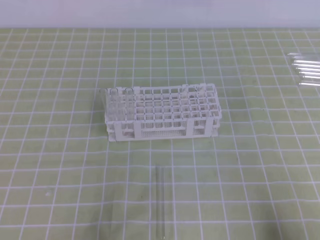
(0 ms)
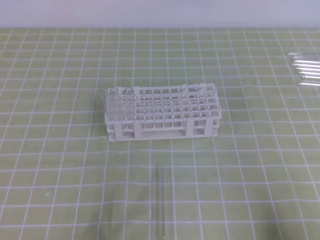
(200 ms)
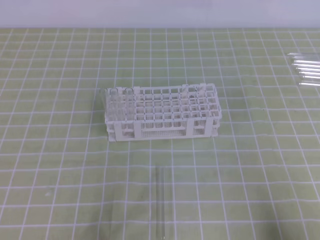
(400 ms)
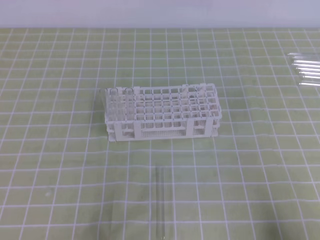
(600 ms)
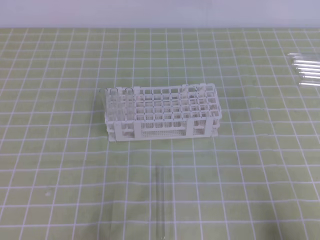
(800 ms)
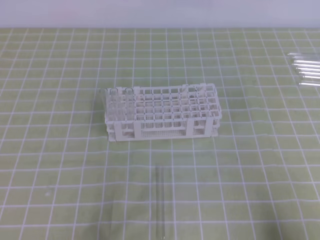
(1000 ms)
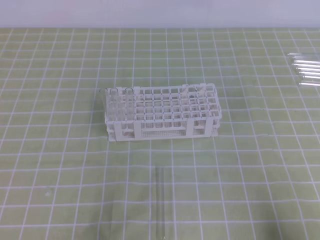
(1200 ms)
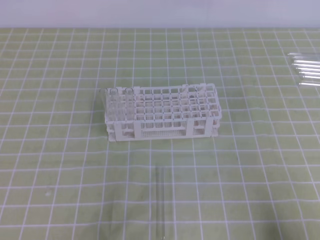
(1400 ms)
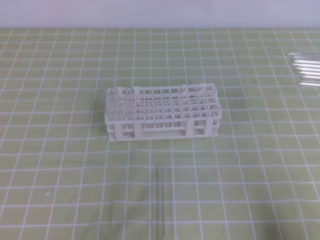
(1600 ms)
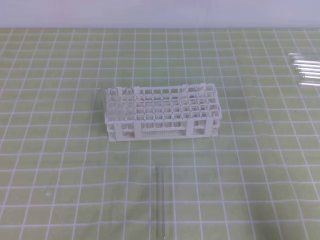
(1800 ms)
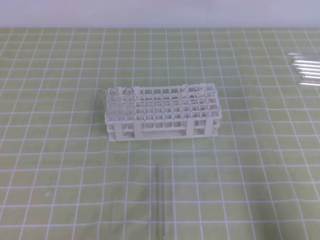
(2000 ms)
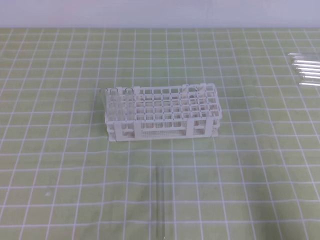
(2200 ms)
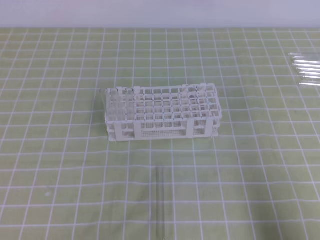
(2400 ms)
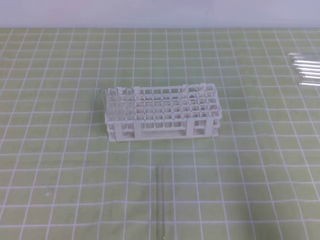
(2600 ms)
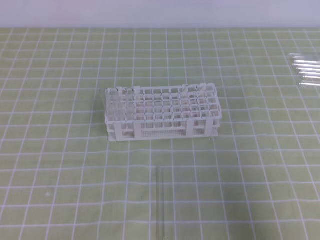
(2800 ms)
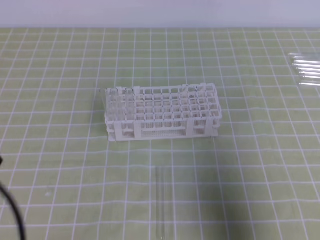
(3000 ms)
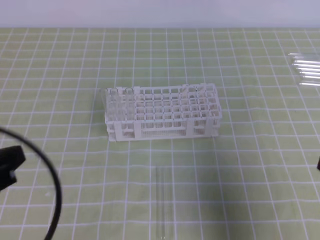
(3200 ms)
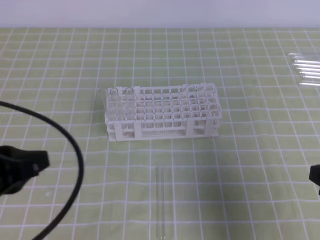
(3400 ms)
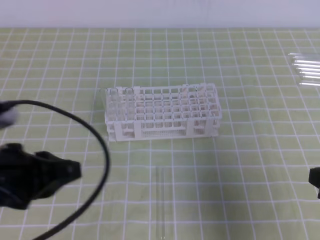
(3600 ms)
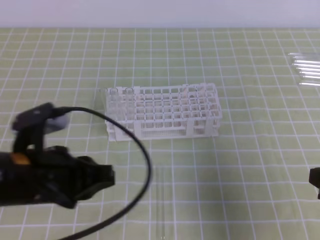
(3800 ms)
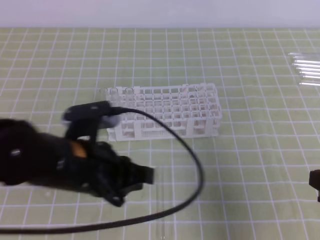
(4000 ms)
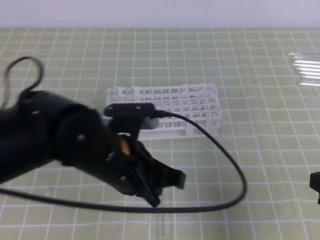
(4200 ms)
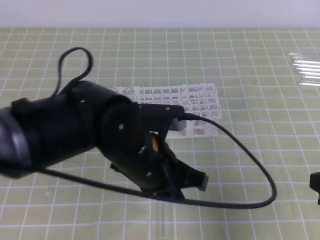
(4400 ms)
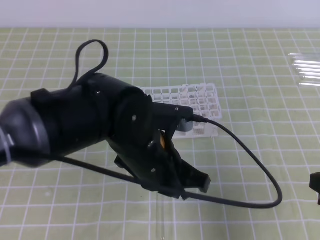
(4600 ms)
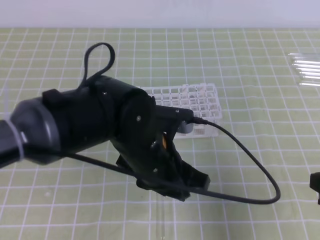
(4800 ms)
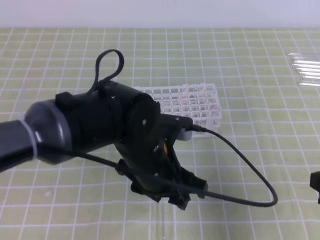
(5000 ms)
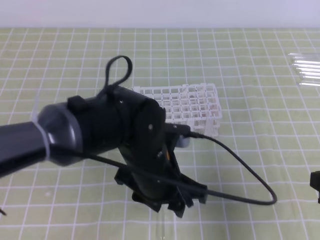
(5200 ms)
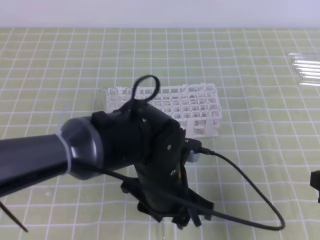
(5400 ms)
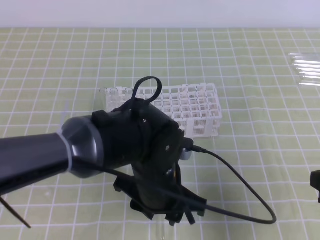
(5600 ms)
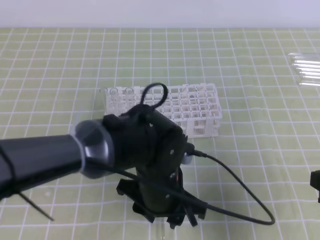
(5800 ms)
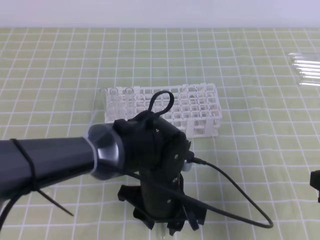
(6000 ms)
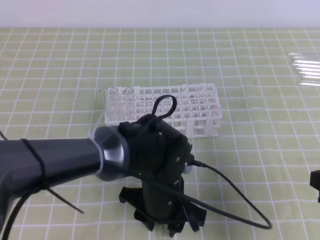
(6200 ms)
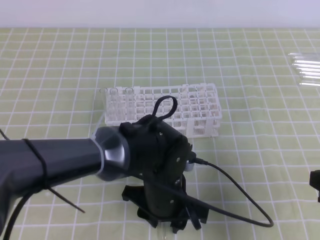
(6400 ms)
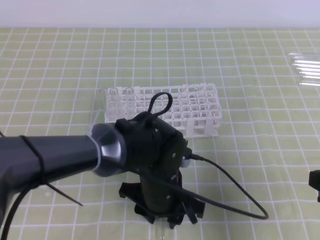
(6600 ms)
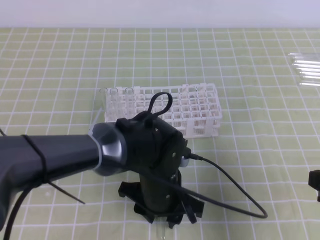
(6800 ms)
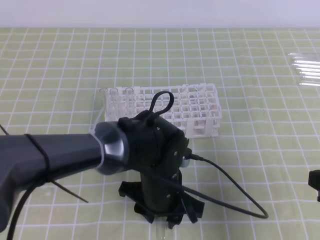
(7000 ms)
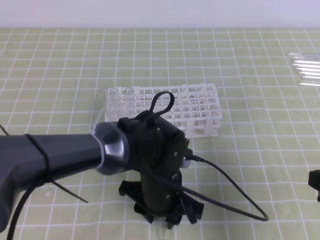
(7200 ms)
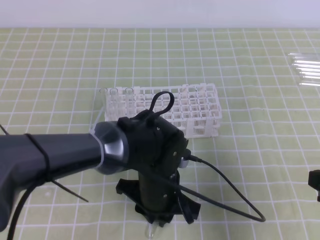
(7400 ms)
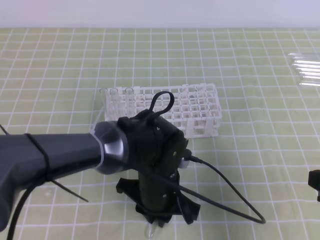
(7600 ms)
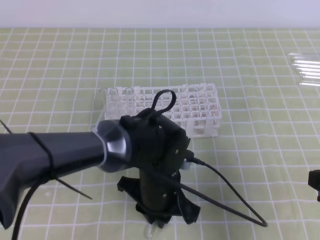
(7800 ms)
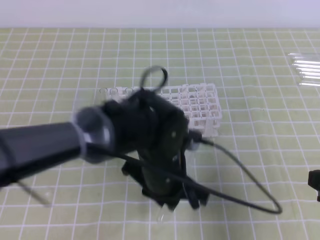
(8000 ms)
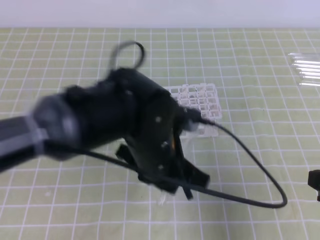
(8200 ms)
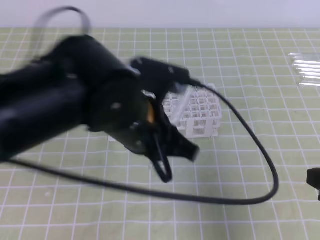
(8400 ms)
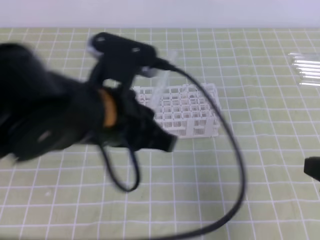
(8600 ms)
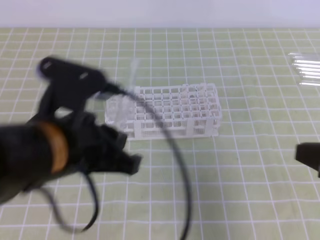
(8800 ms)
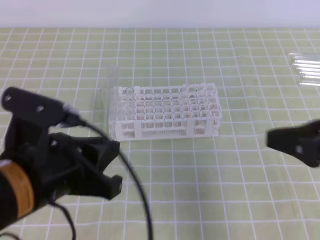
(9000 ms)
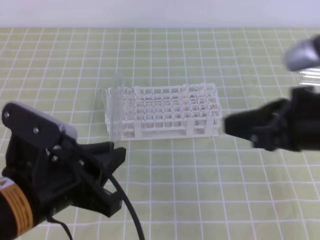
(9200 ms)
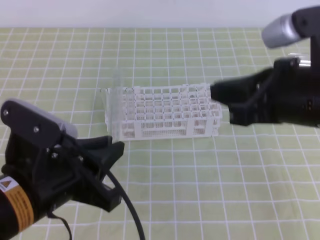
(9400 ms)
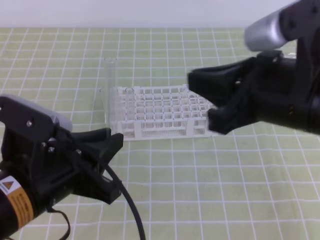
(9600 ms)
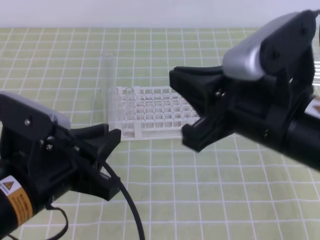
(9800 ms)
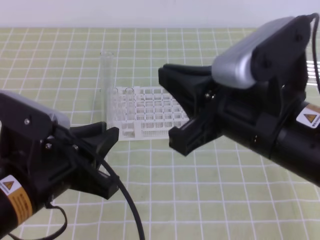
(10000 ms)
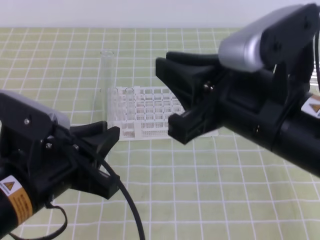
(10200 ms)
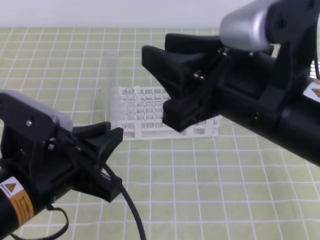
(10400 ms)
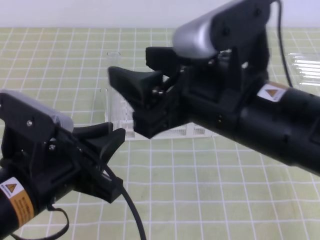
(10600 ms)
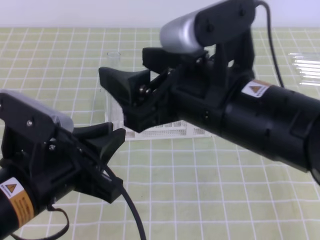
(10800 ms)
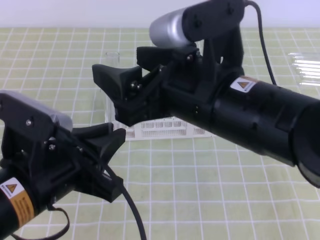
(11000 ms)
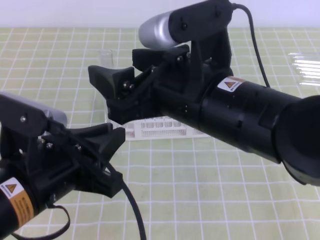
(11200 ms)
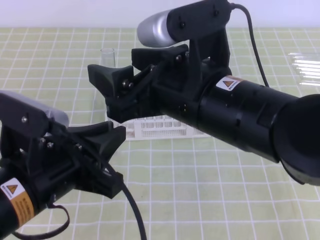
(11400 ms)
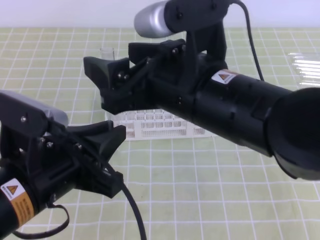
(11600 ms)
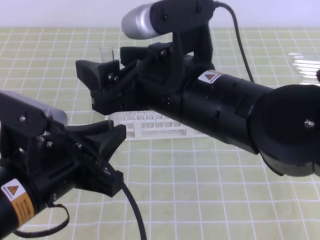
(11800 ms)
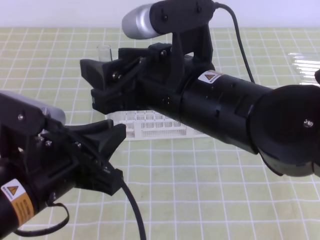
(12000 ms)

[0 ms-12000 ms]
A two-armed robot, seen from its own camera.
1600 ms to 3000 ms: Both grippers travel together upward, some 10 cm.
3000 ms to 4400 ms: The left gripper goes about 25 cm to the right and forward.
4400 ms to 6000 ms: The left gripper shifts roughly 10 cm downward, and opens.
6000 ms to 7600 ms: The left gripper closes.
7600 ms to 9000 ms: The right gripper moves upward, some 5 cm. The left gripper moves upward, to the left and backward, some 20 cm.
9000 ms to 10400 ms: The right gripper moves to the left and upward, about 15 cm, and opens its fingers.
10400 ms to 12000 ms: The right gripper is displaced to the left by approximately 5 cm, and opens up.

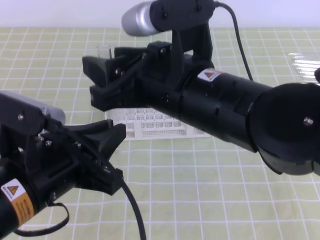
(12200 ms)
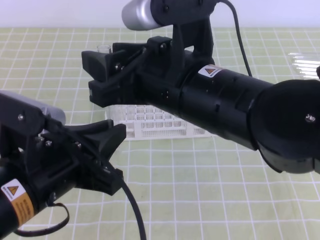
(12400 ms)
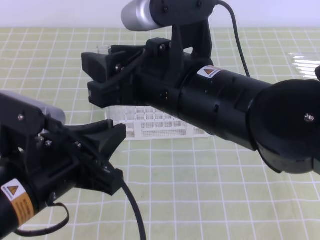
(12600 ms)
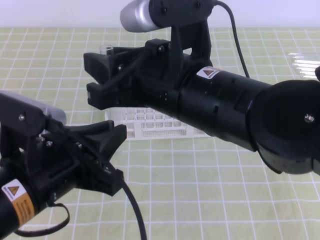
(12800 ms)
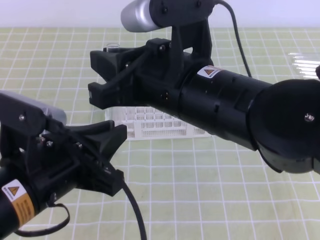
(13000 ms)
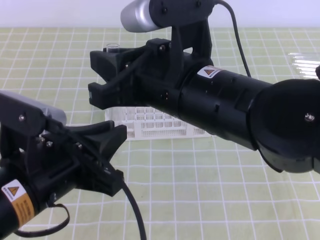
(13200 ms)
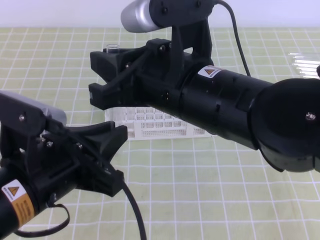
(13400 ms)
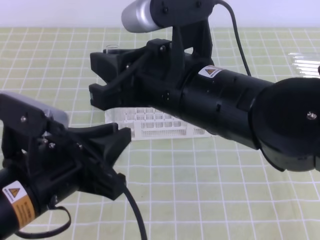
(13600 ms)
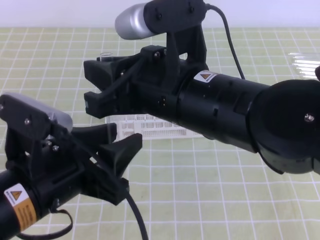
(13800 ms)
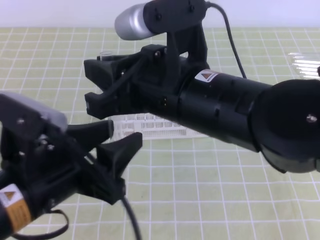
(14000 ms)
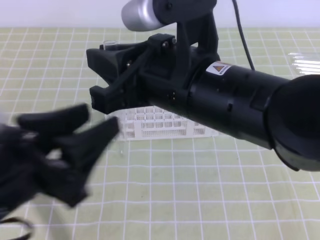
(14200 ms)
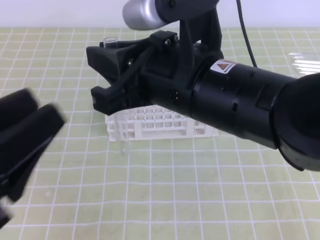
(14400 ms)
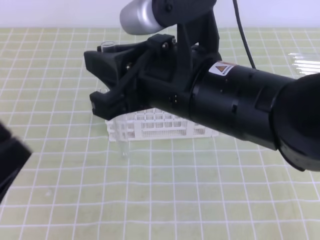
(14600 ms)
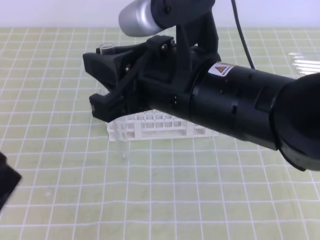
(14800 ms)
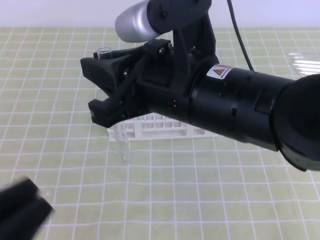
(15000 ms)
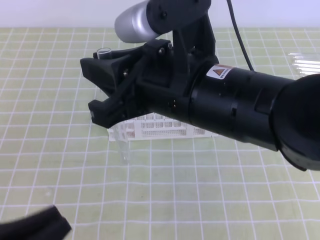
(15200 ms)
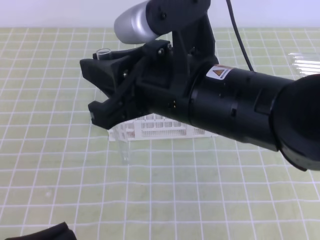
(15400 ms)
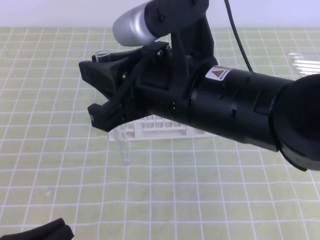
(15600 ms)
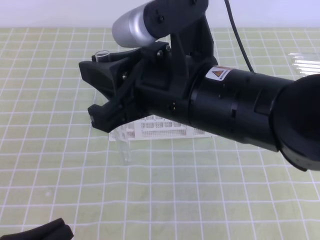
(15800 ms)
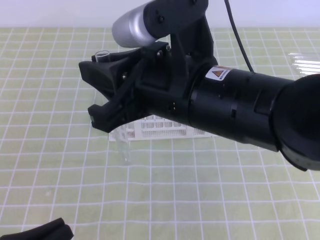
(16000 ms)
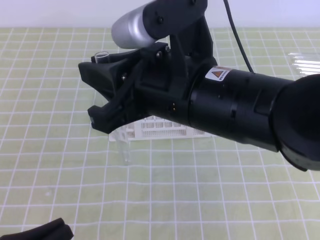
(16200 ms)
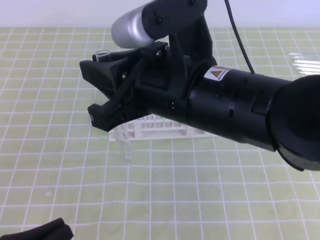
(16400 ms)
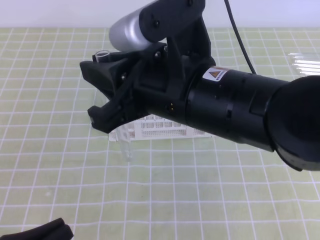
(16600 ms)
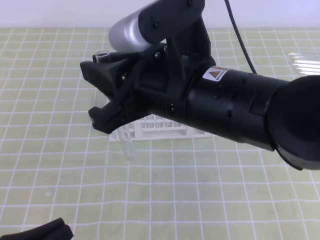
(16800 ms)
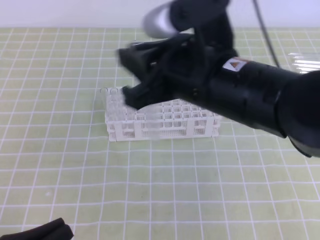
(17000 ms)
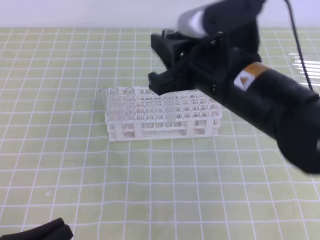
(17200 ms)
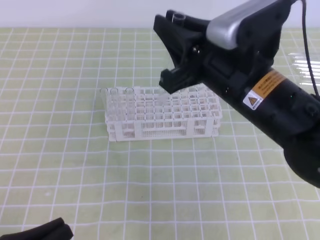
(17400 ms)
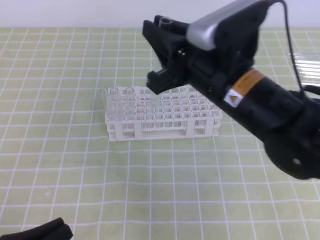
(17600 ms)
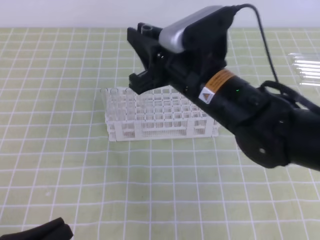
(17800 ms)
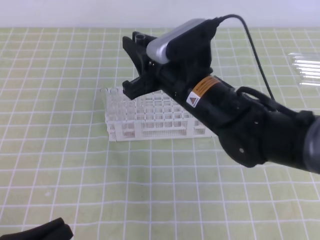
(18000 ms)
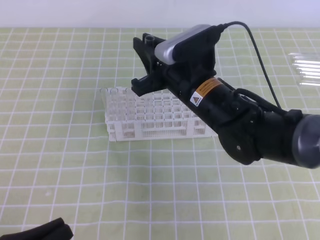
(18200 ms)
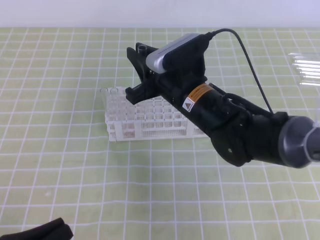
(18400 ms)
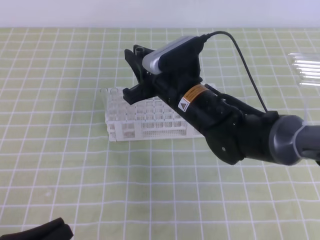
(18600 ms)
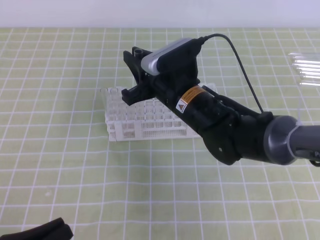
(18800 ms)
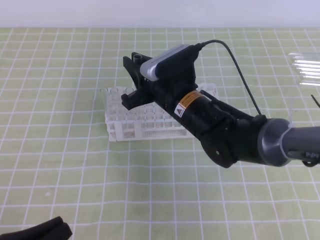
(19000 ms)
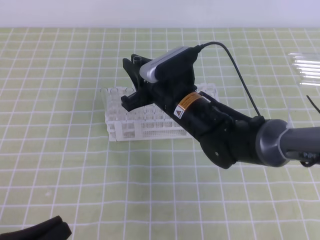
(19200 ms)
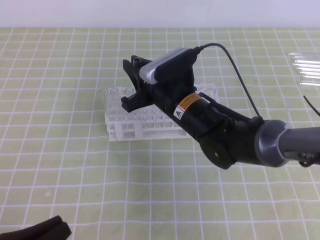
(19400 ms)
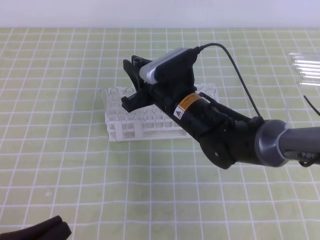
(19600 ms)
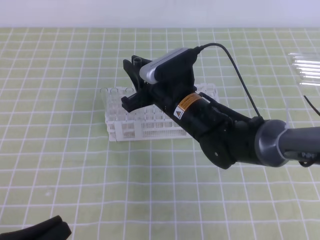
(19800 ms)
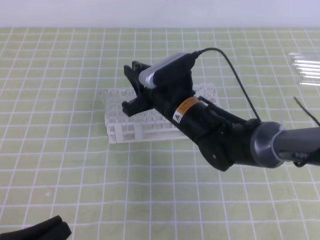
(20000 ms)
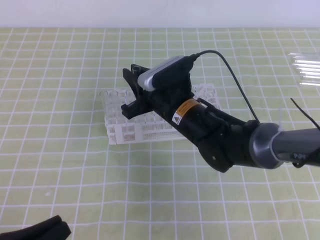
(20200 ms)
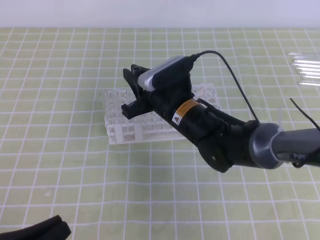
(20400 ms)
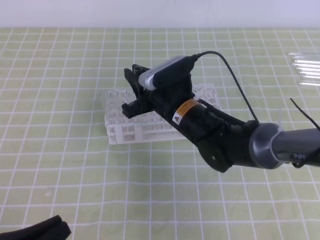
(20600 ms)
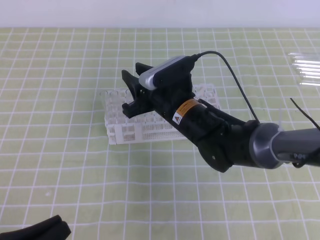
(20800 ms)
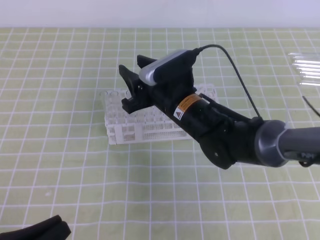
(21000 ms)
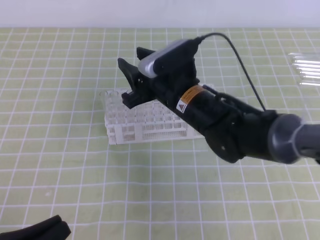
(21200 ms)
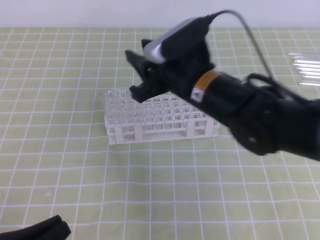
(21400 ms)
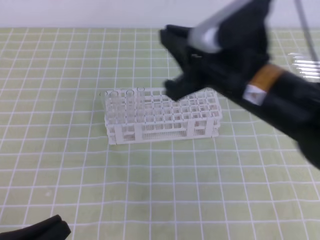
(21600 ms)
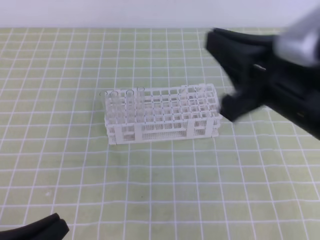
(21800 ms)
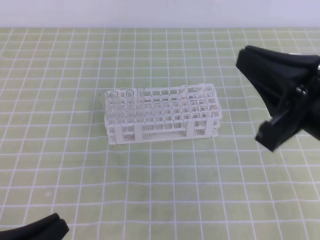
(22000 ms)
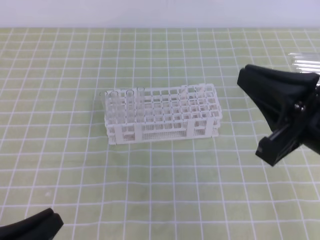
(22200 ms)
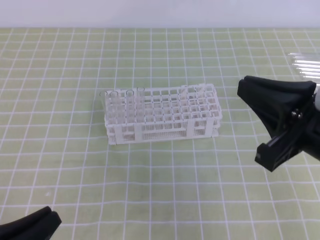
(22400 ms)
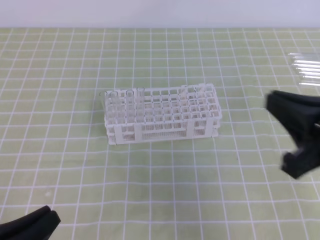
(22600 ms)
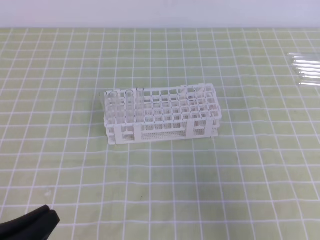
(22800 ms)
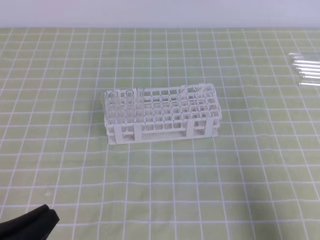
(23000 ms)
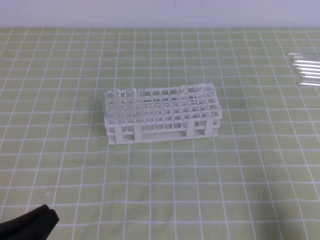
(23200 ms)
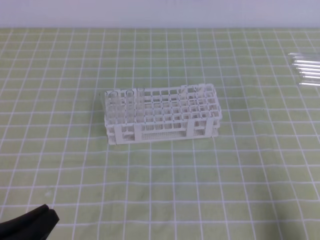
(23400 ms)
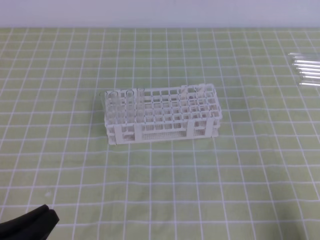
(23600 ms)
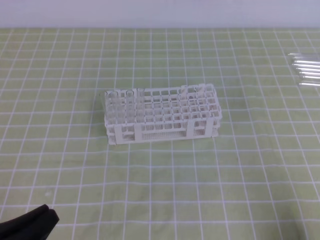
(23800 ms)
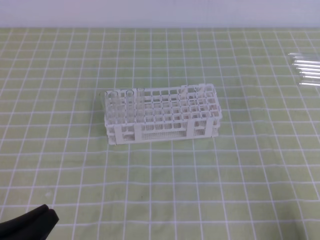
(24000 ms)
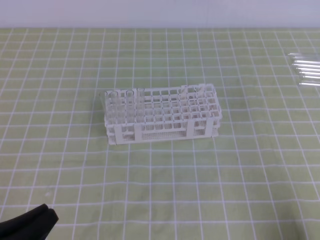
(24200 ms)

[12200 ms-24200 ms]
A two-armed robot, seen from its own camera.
12200 ms to 13800 ms: The left gripper opens up. Meanwhile the right gripper closes its fingers.
13800 ms to 15200 ms: The left gripper shifts roughly 15 cm to the left, backward and downward, and closes its fingers.
15200 ms to 16600 ms: The grippers move only a little.
16600 ms to 18200 ms: The right gripper moves forward and downward, some 15 cm.
18200 ms to 19800 ms: The right gripper goes about 5 cm downward.
19800 ms to 21200 ms: The right gripper opens up.
21200 ms to 22600 ms: The right gripper shifts roughly 25 cm to the right, backward and upward, and closes up.
22600 ms to 24200 ms: The right gripper is displaced downward, to the right and backward by about 20 cm.
